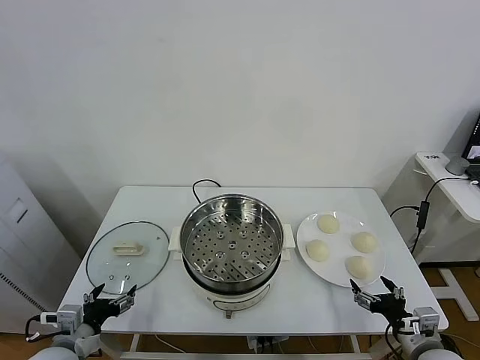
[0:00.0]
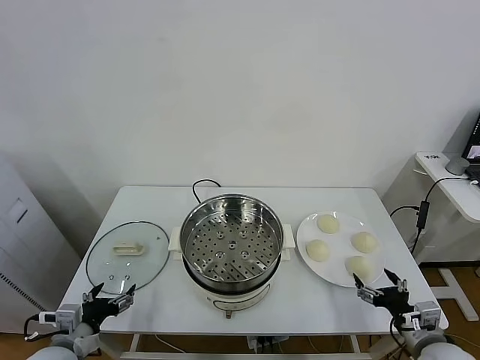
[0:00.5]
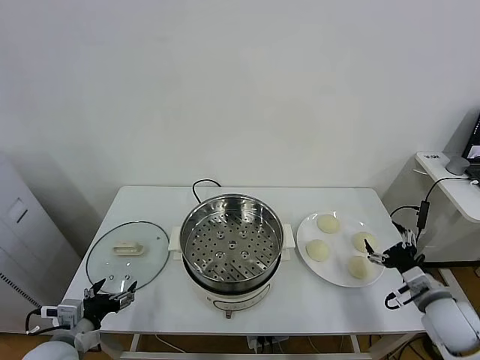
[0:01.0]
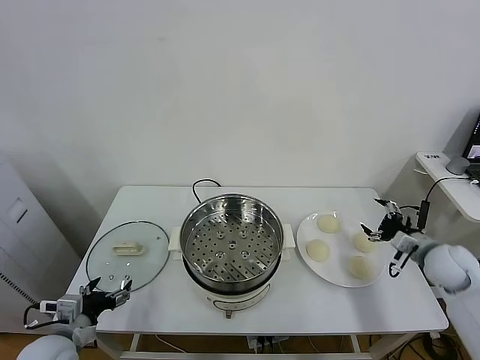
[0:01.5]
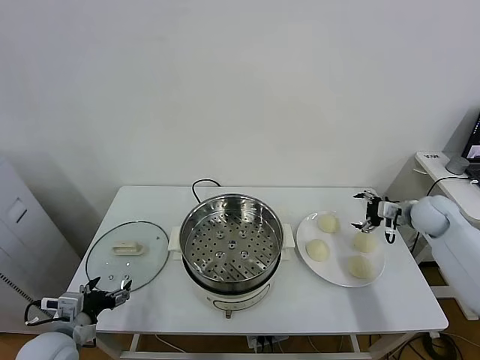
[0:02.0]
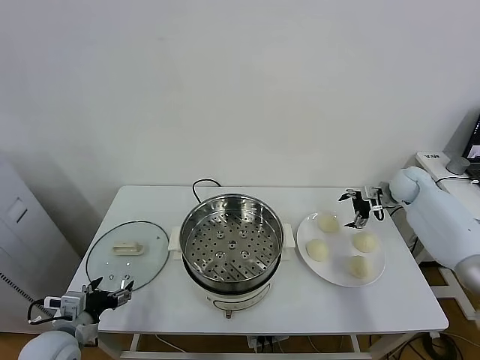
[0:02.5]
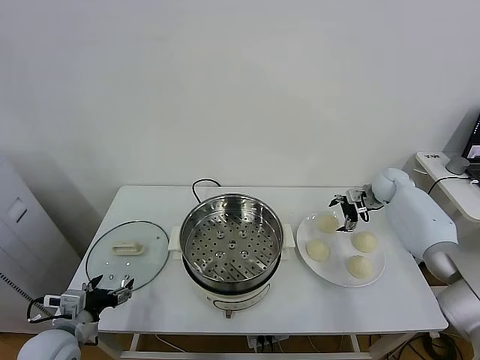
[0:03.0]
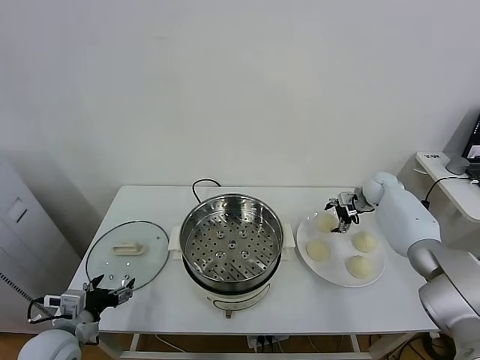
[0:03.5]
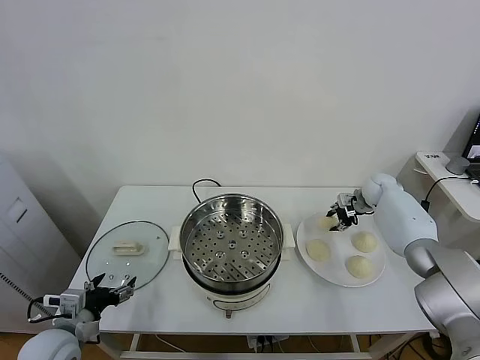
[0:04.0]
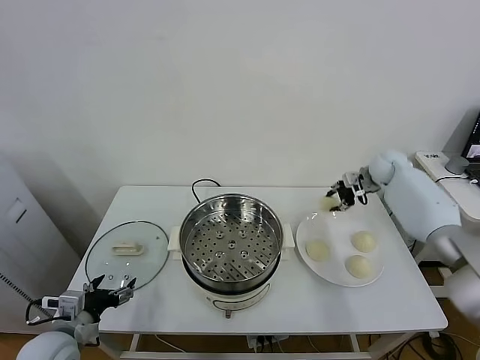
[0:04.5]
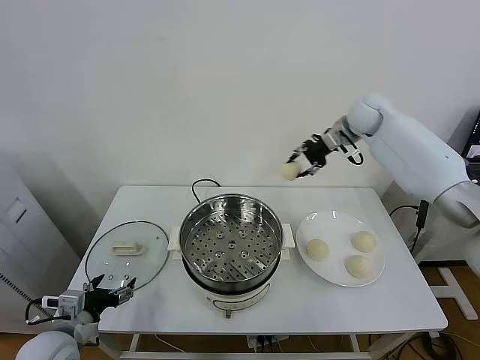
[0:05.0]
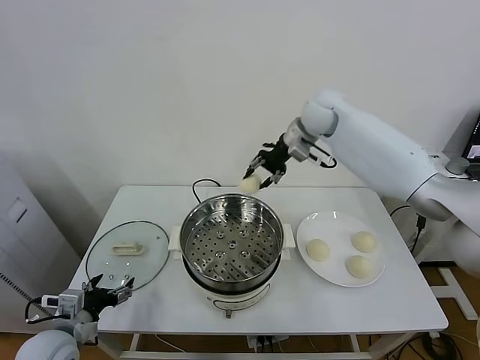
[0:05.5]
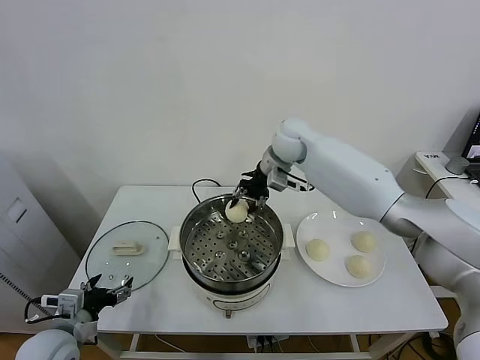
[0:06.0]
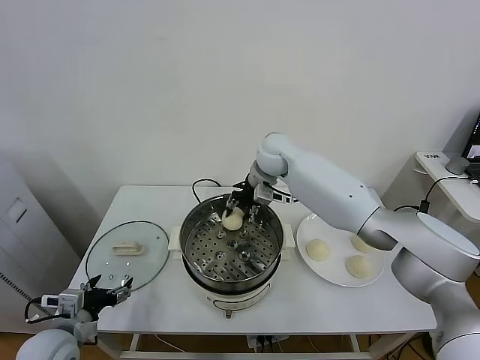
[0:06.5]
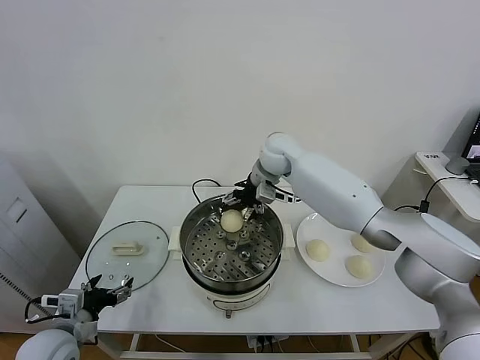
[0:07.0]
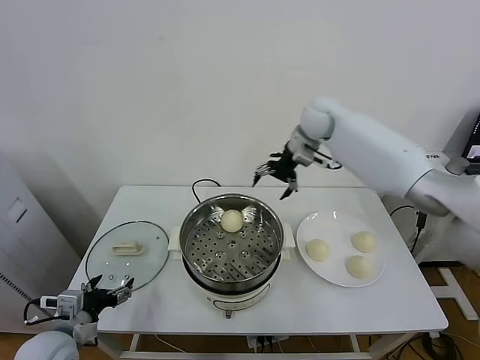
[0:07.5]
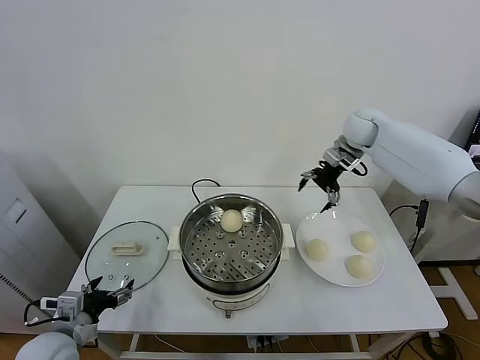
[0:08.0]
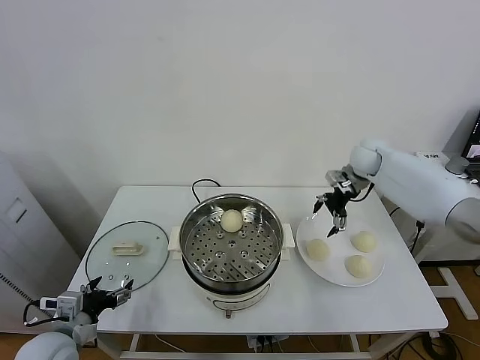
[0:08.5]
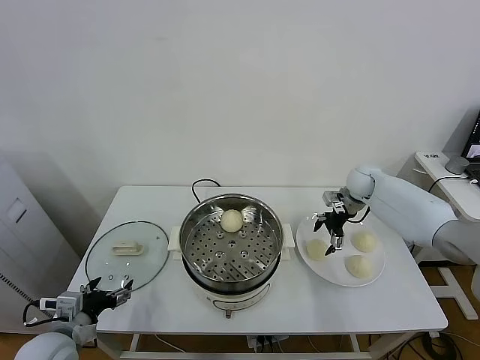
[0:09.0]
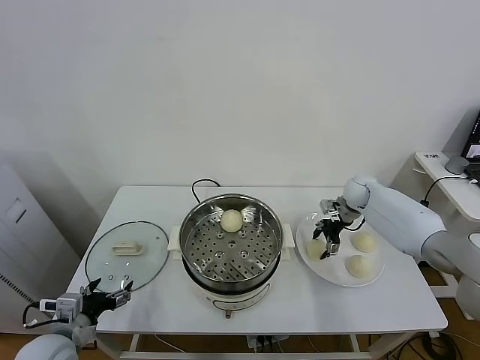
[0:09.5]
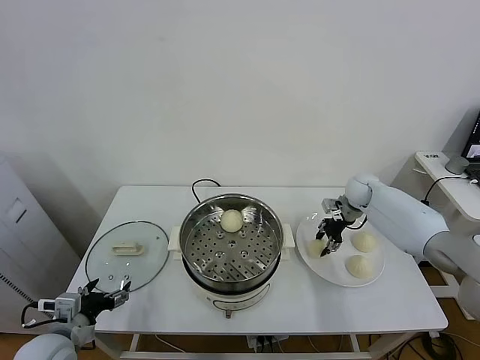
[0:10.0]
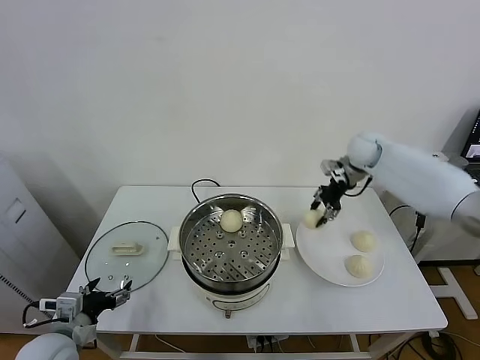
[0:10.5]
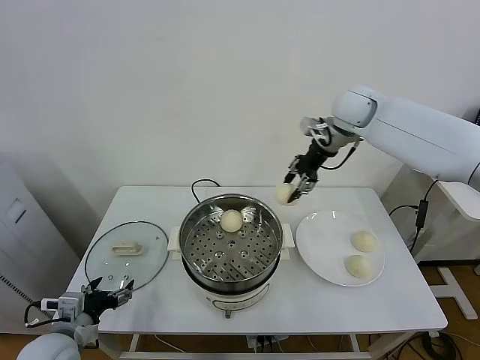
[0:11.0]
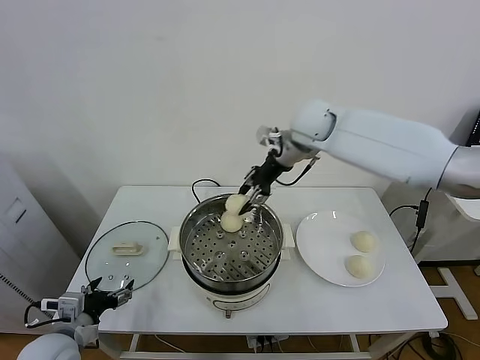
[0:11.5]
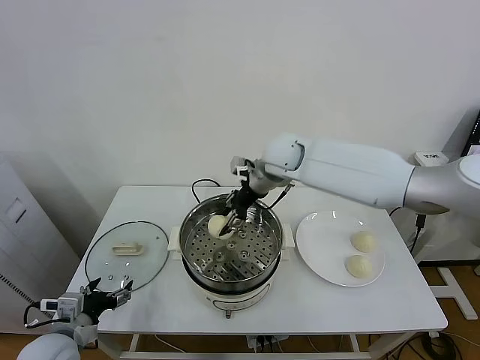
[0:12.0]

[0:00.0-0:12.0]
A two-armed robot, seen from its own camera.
Task of the whole recording: take steamed baozi put them in steamer.
Step, 0:00.0 to 0:03.5: Grasp the baozi in the plate with right gripper.
Step, 0:04.0 to 0:06.5: Place the baozi on the steamer with right gripper.
Step, 0:07.5 to 0:09.5: Grasp the baozi in the plate with right gripper.
0:02.0 to 0:04.0: The right gripper moves forward and to the left, roughly 10 cm, and closes up.
0:04.0 to 0:06.0: The right gripper moves to the left and upward, approximately 35 cm.
0:06.0 to 0:08.0: The right gripper goes approximately 20 cm to the right, and opens its fingers.
0:08.0 to 0:10.0: The right gripper moves downward, roughly 15 cm, and closes its fingers.
0:10.0 to 0:12.0: The right gripper is displaced to the left and upward by approximately 30 cm.

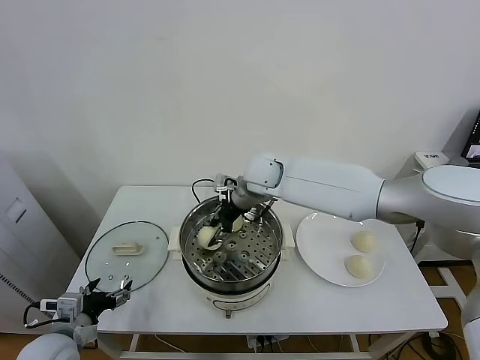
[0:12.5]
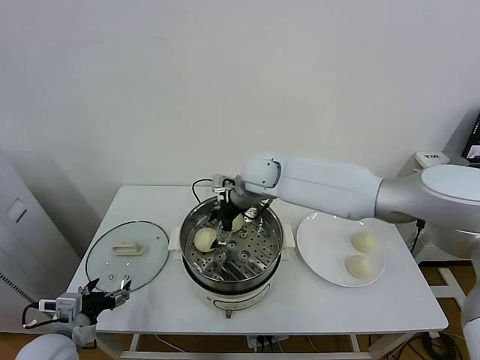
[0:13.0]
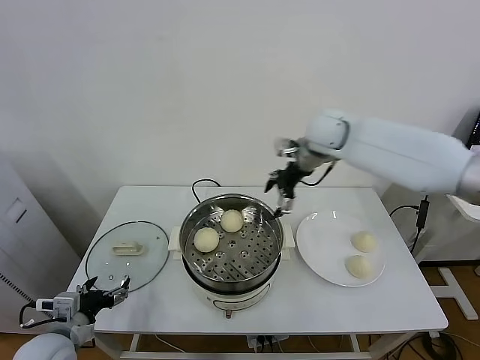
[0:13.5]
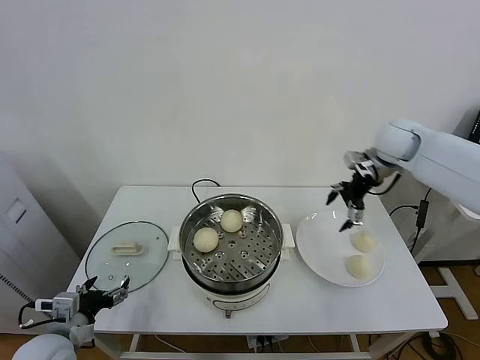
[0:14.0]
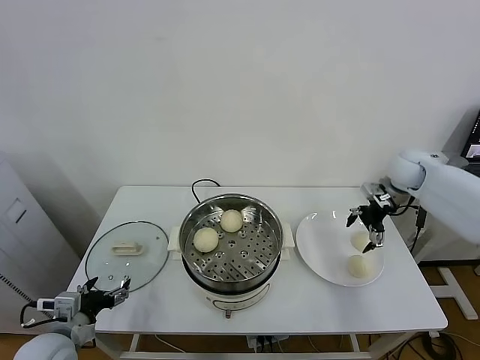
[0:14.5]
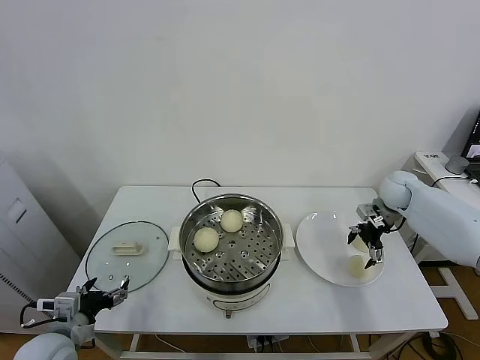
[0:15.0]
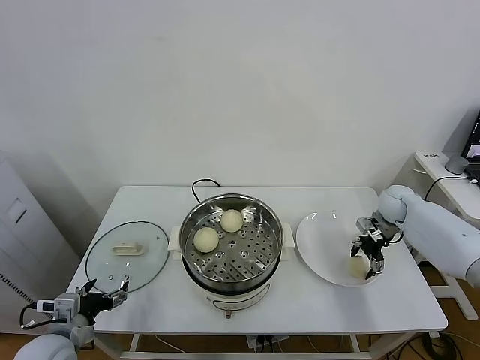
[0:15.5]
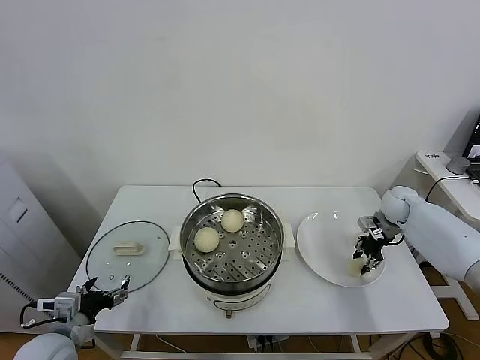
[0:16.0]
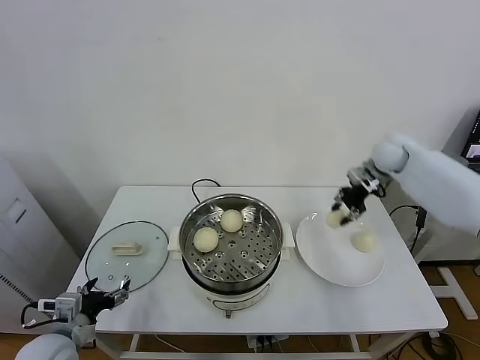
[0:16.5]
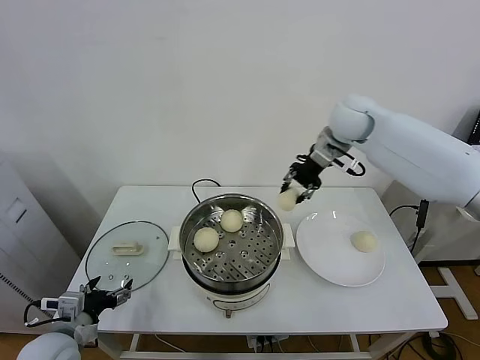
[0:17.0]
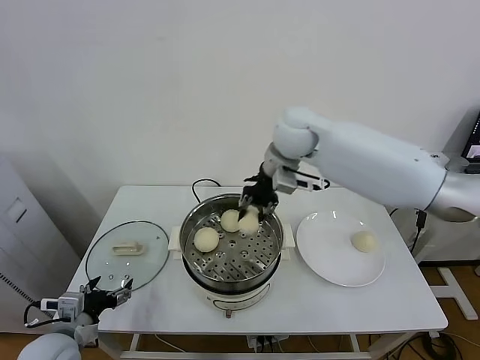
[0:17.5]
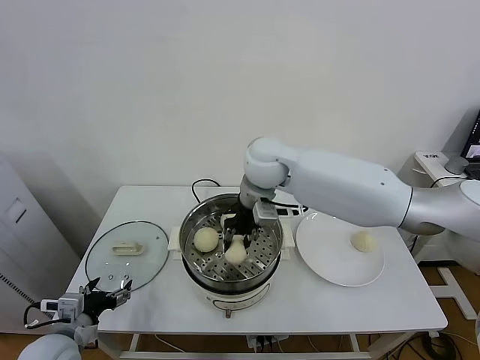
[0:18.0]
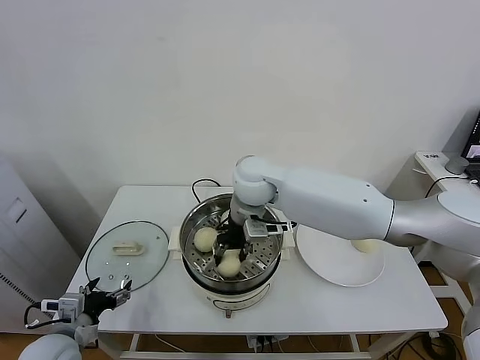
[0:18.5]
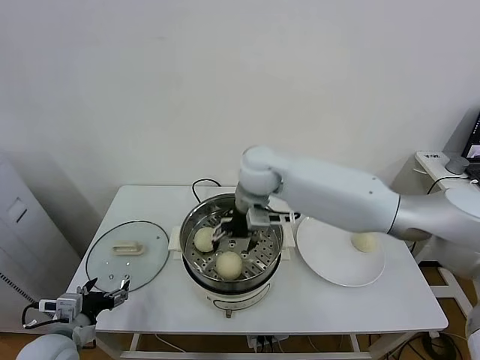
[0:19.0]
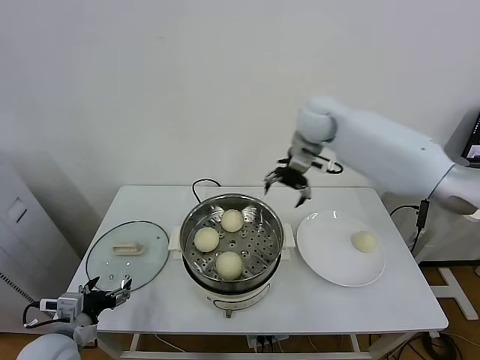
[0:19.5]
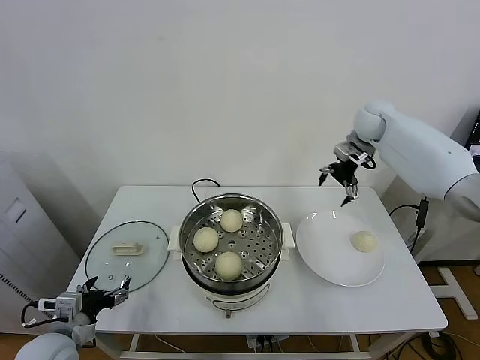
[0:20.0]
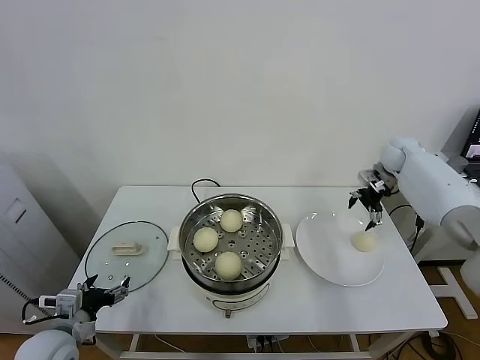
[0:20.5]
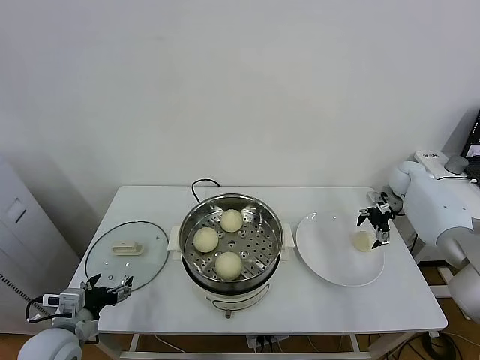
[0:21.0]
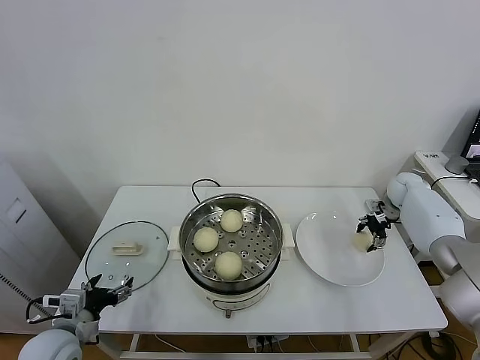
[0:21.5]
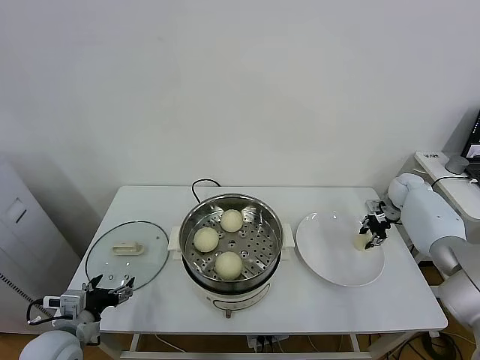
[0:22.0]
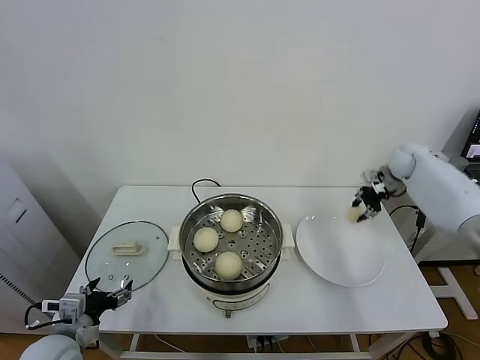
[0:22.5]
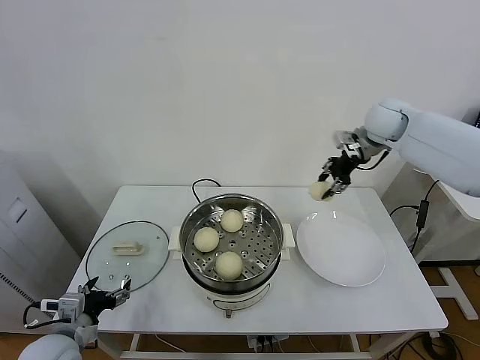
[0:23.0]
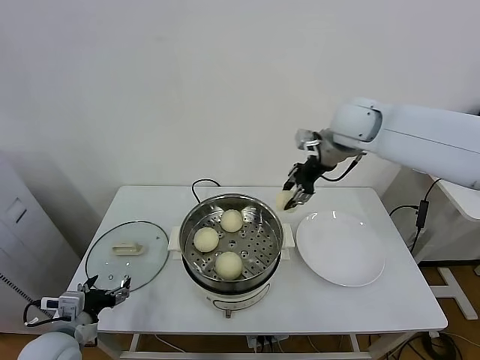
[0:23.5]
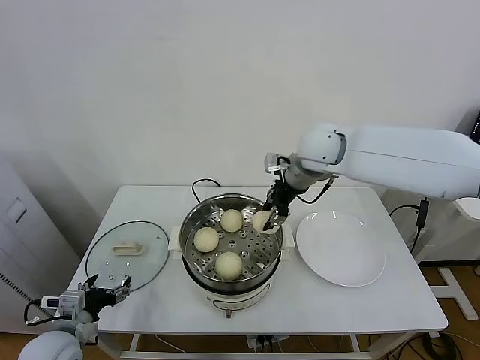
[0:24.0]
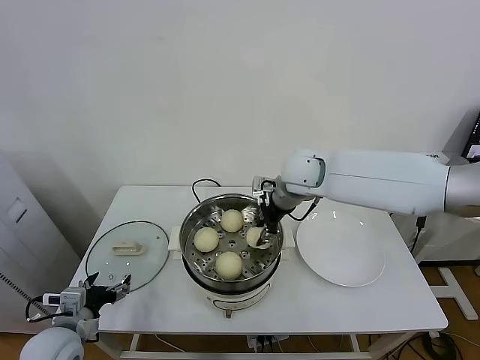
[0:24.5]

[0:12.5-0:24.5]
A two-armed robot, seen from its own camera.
Task of the whole recording: take steamed baozi put them in steamer.
Step, 0:13.5 to 0:15.5: Grasp the baozi in the plate with right gripper.
Step, 0:16.0 to 0:19.0: Place the baozi on the steamer with right gripper.
Step, 0:19.5 to 0:21.5: Grasp the baozi in the plate with right gripper.
0:12.5 to 0:14.5: The right gripper travels to the right by roughly 35 cm, and opens.
0:14.5 to 0:16.5: The right gripper travels to the left by roughly 5 cm, goes downward and returns, some 10 cm each way, and closes up.
0:16.5 to 0:18.5: The right gripper travels to the left by some 35 cm, and opens its fingers.
0:18.5 to 0:20.5: The right gripper goes some 40 cm to the right, and opens.
0:20.5 to 0:22.5: The right gripper reaches roughly 10 cm downward, then returns, and closes up.
0:22.5 to 0:24.5: The right gripper goes roughly 30 cm to the left.

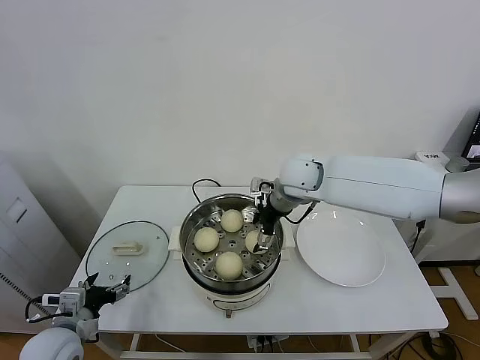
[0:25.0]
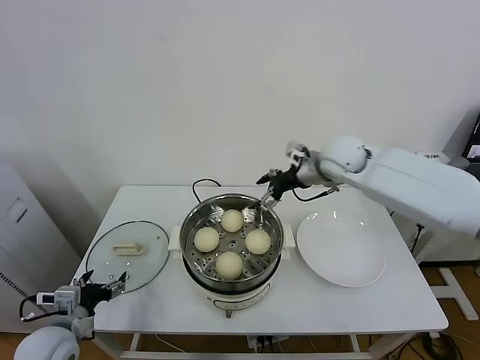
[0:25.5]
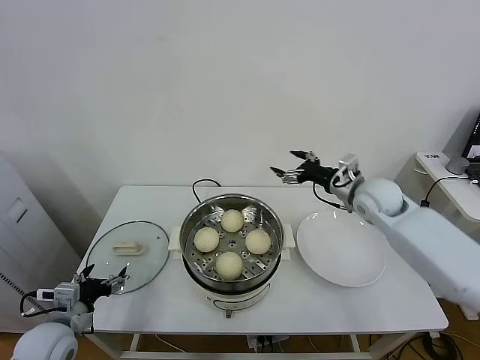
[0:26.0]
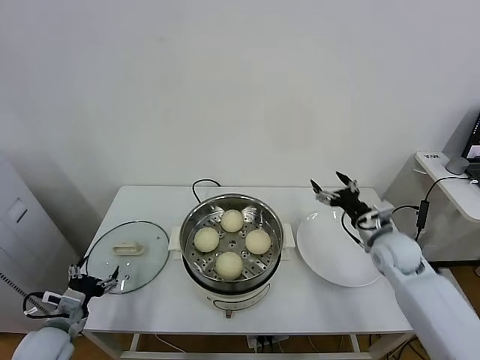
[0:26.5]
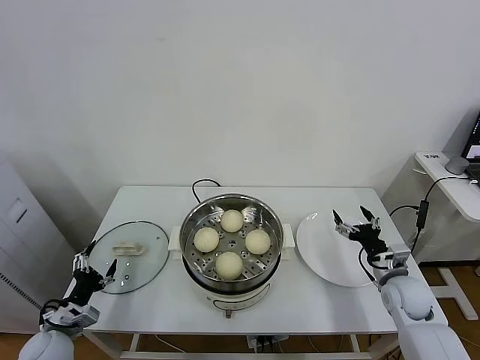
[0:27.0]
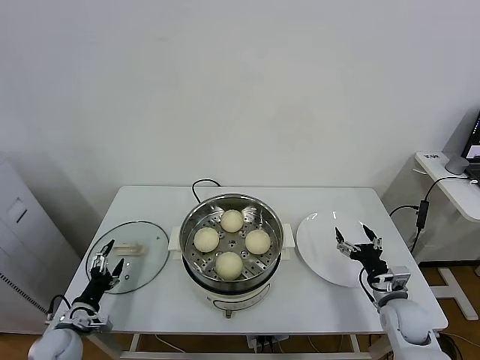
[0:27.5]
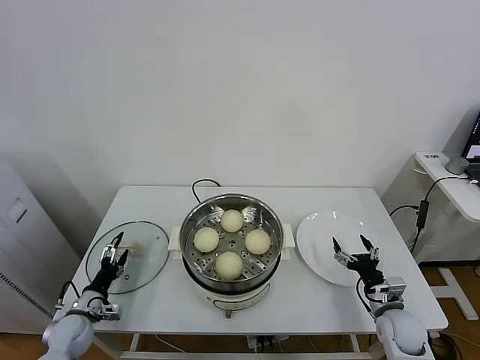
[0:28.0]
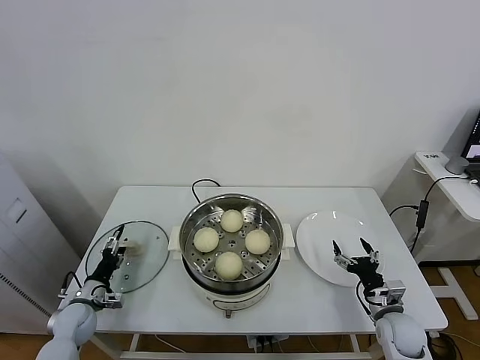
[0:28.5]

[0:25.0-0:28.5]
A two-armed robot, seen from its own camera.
Task of the whole recording: take steamed baozi put them in steamer.
0:25.0 to 0:27.0: The left gripper travels downward and to the left by about 10 cm. Meanwhile the right gripper travels to the right, downward and backward by about 40 cm.
0:27.0 to 0:28.5: The left gripper is displaced forward and downward by about 10 cm, while the right gripper is displaced downward and backward by some 10 cm.
